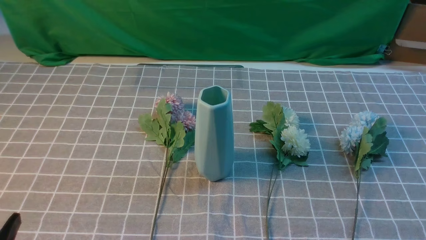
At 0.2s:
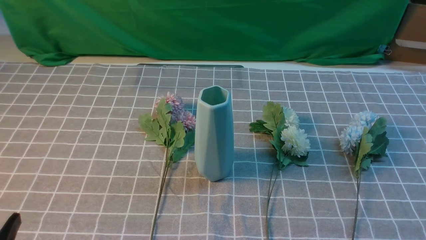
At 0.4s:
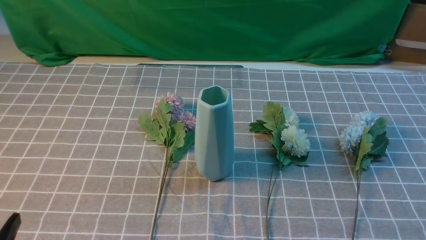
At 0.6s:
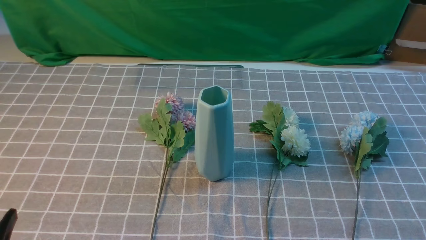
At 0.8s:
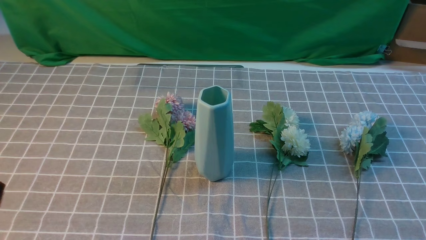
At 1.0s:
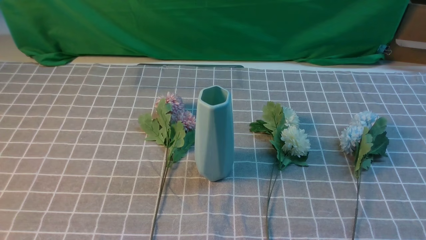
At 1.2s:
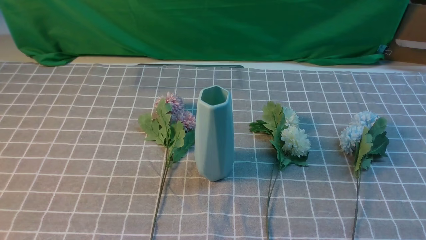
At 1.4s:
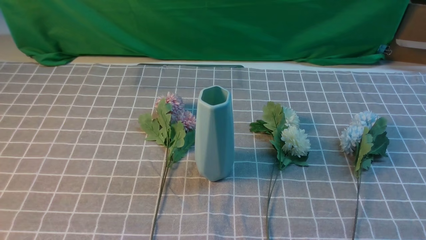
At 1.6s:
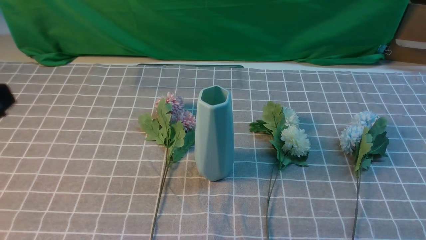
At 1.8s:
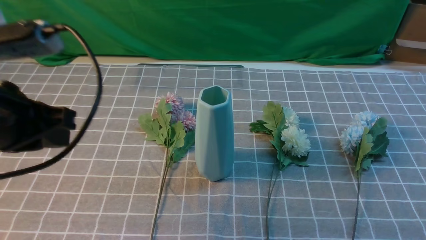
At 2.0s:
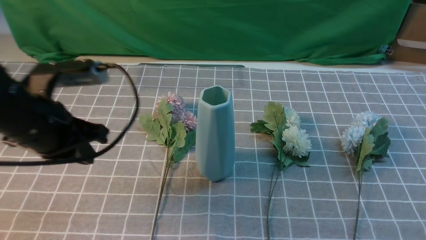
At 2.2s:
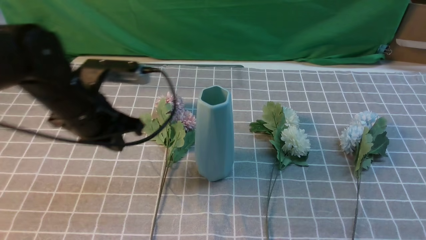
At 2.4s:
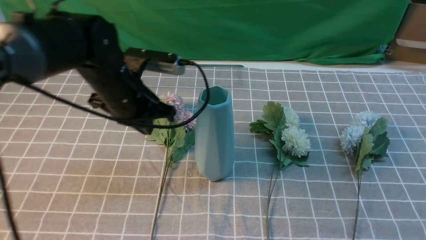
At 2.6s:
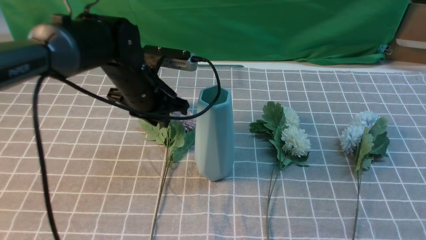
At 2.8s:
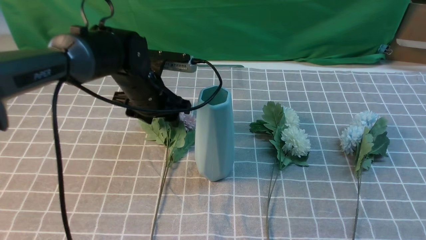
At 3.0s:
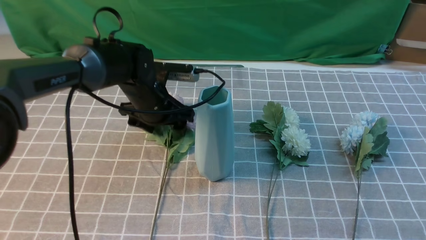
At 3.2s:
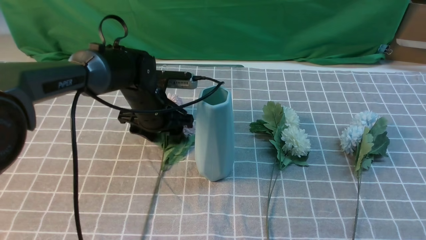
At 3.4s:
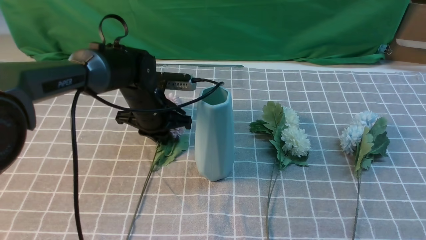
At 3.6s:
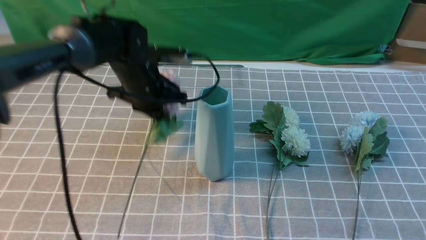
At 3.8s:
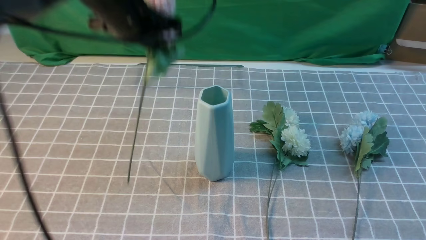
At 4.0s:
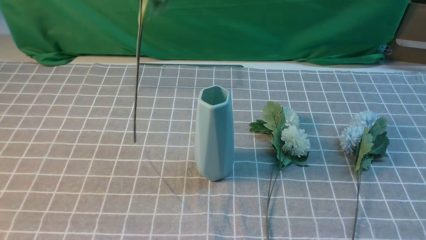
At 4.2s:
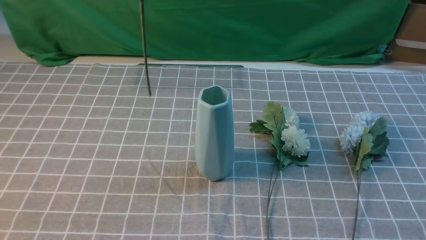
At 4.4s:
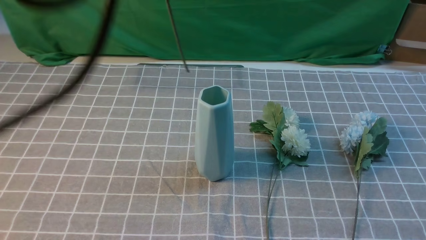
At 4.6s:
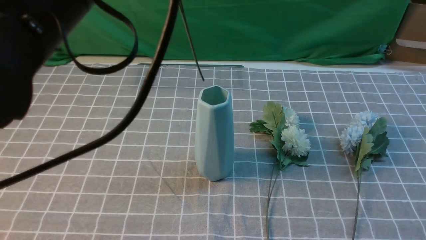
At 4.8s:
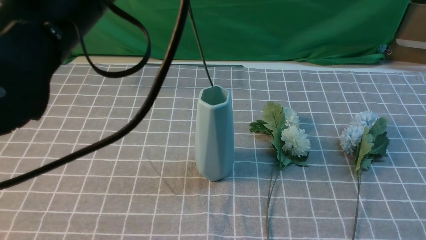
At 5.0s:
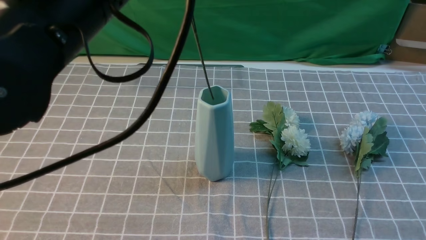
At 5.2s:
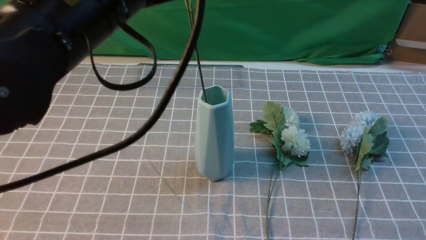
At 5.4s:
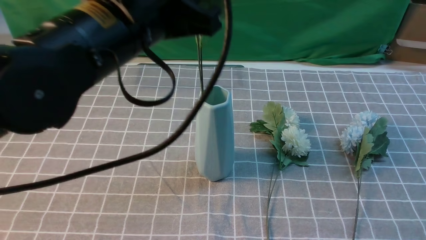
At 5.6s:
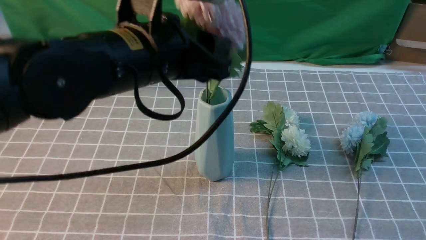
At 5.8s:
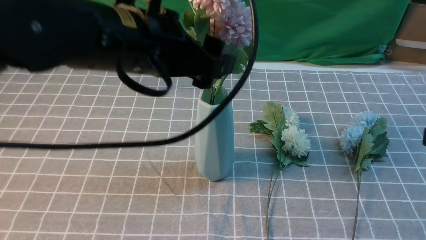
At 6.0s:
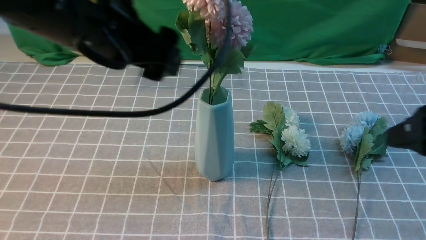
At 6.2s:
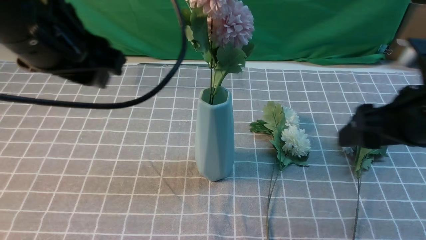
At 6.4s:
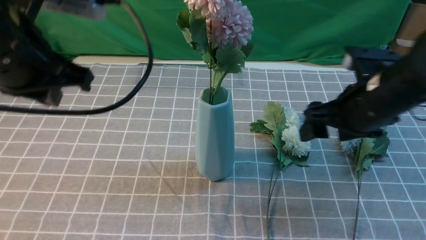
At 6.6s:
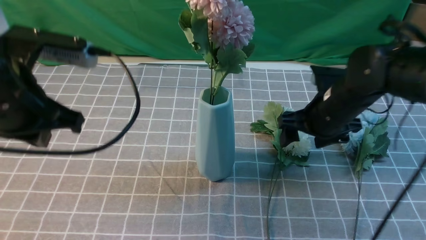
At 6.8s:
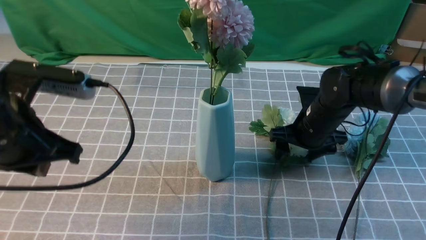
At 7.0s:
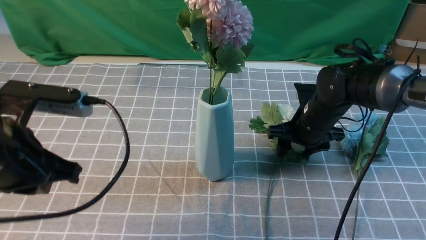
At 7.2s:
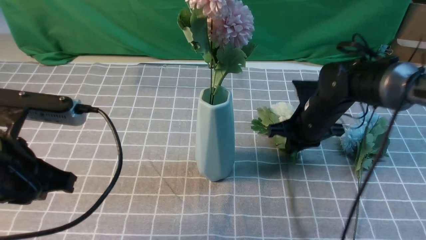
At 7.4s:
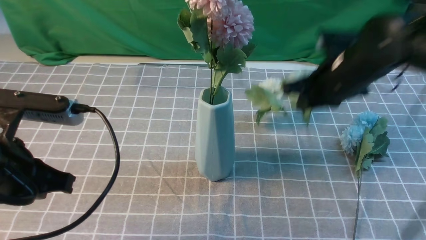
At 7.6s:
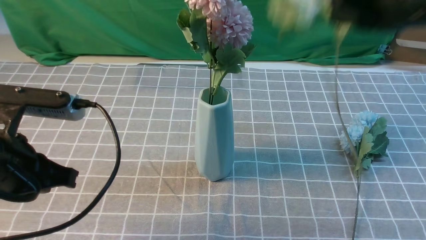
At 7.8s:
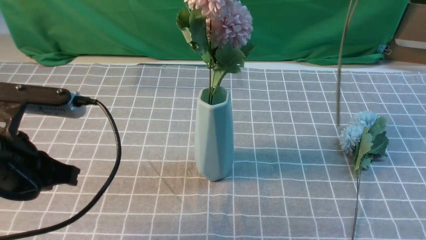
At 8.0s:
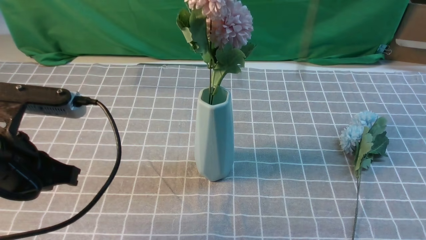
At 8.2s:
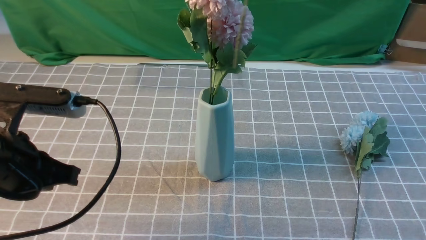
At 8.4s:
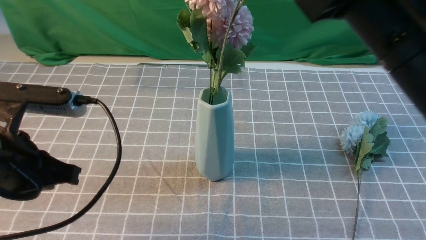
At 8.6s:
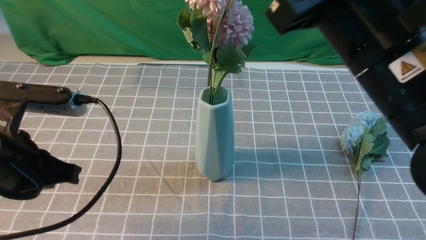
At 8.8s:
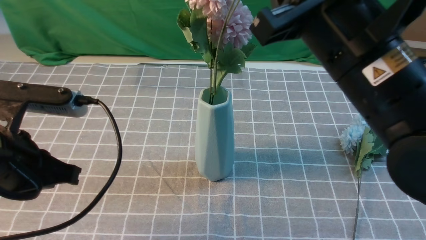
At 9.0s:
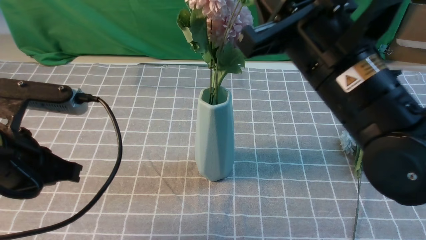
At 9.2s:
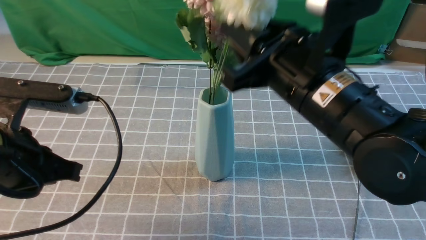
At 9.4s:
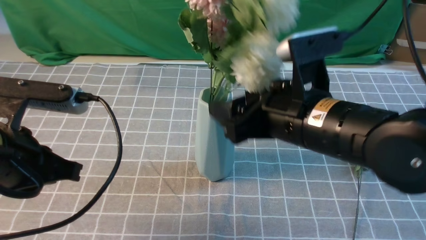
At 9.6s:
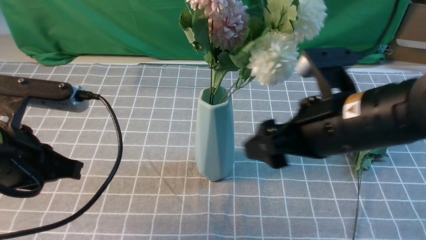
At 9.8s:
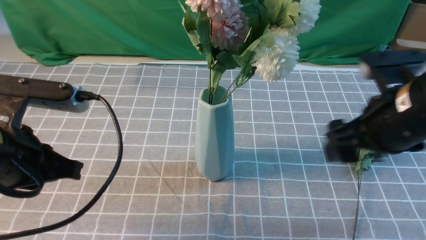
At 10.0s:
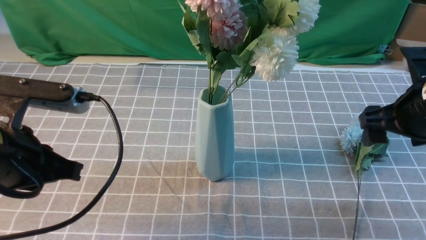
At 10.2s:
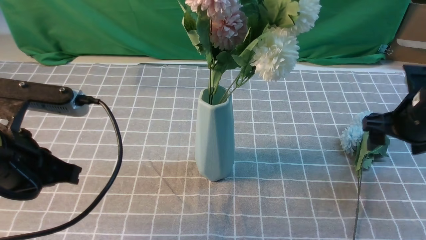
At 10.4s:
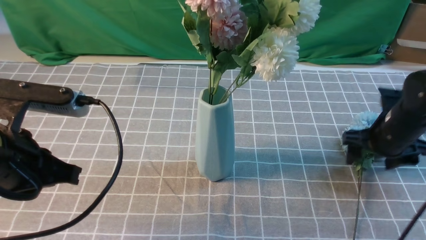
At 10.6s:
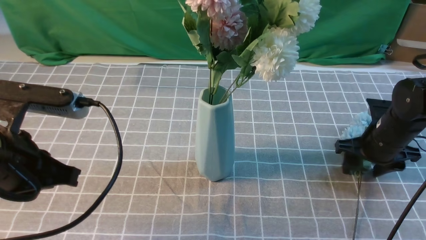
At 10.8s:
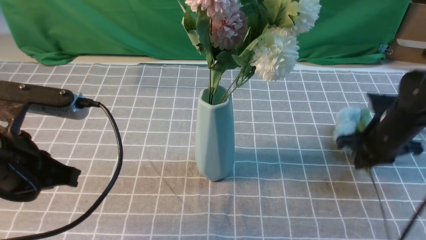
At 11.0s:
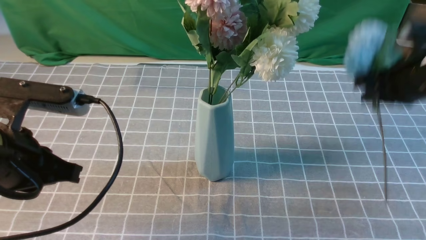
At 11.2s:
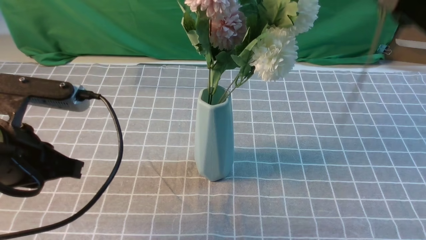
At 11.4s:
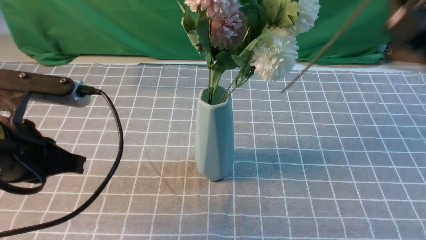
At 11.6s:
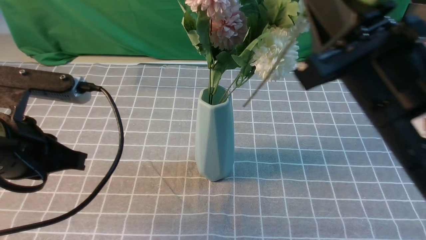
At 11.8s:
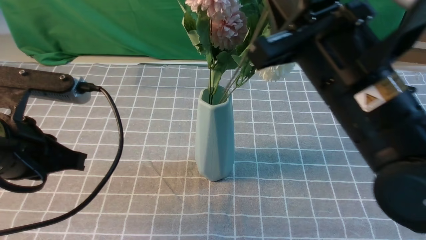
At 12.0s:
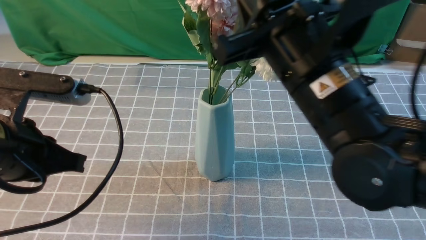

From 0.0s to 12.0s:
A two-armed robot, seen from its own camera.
Task of the whole recording: insert the flowers into the vase on the table with the grey tablecloth.
Step, from 0.0s to 3.4s: use the left arm to grab a bunch of fresh flowers.
Step, from 3.6s to 5.8s: use the left arm to insert the flowers into the vase.
Step, from 6.2s to 7.2s: use the right arm to grab a bunch of fresh flowers.
Step, from 7.4s to 9.4s: use the right arm to insert the flowers into the vase.
Step, from 9.6s to 10.6s: use the right arm to grab a bunch of fresh flowers.
From 1.6s to 3.0s: The left gripper travels forward, downward and to the right by approximately 35 cm, and opens. The right gripper is displaced upward and forward by approximately 15 cm.
From 3.0s to 4.4s: The left gripper moves upward and backward, roughly 35 cm, and closes.
From 4.4s to 6.0s: The left gripper moves downward, about 10 cm, and opens up; the right gripper heads forward, covering approximately 5 cm, and opens.
From 6.0s to 7.6s: The left gripper goes roughly 15 cm to the left, downward and backward, and closes its fingers. The right gripper travels forward and to the left by roughly 15 cm, moves roughly 20 cm downward and comes back, and closes.
From 7.6s to 9.0s: The right gripper heads backward and to the left, covering some 10 cm.
From 9.0s to 10.4s: The right gripper moves downward, to the right and forward, approximately 25 cm, and opens up.
From 10.4s to 12.0s: The right gripper shifts some 25 cm to the left, upward and backward, and closes its fingers.

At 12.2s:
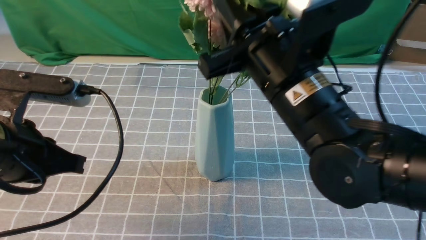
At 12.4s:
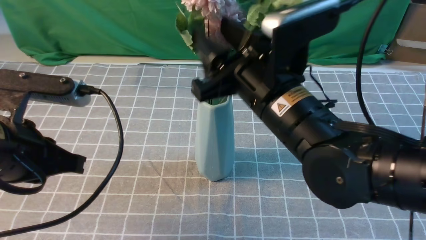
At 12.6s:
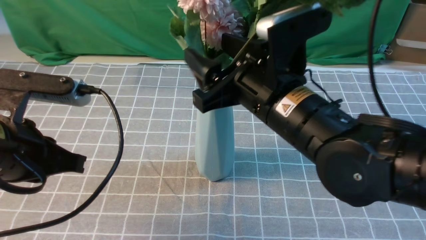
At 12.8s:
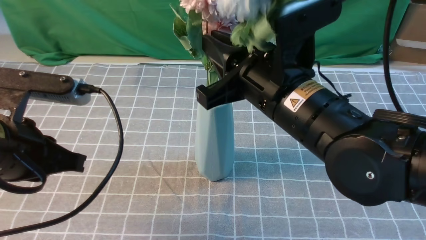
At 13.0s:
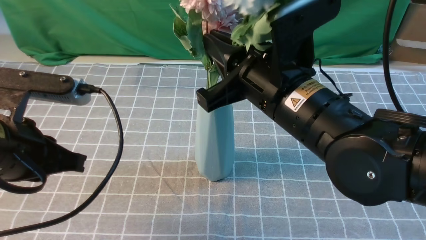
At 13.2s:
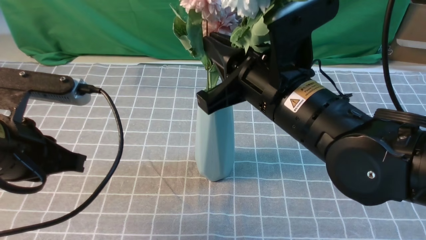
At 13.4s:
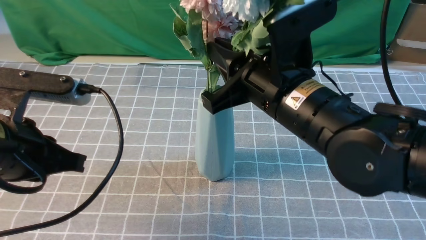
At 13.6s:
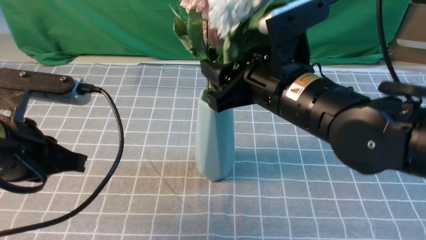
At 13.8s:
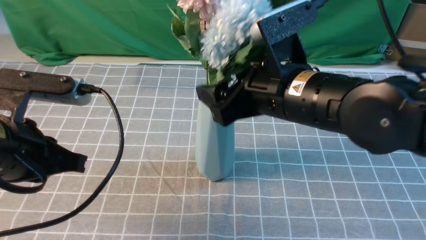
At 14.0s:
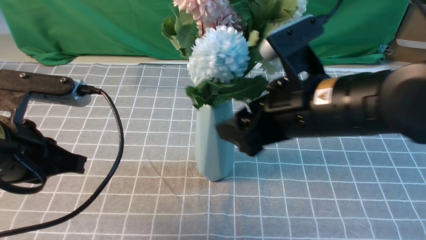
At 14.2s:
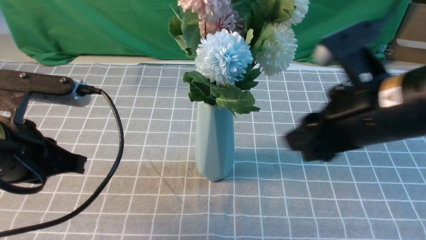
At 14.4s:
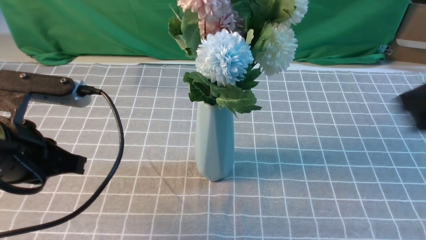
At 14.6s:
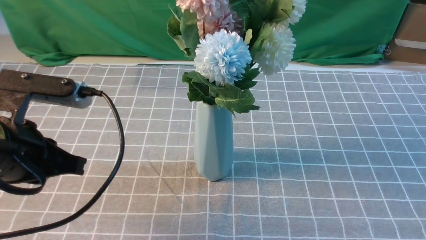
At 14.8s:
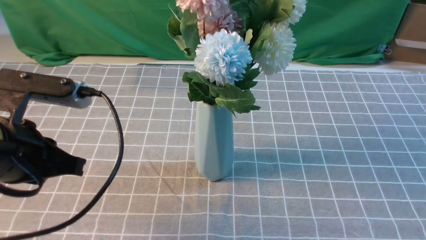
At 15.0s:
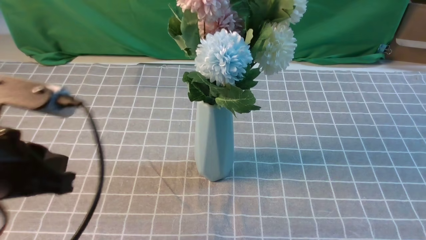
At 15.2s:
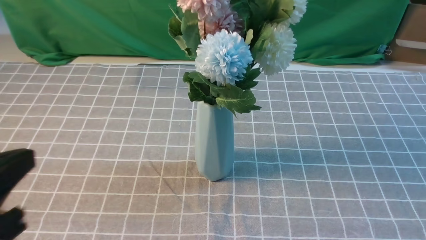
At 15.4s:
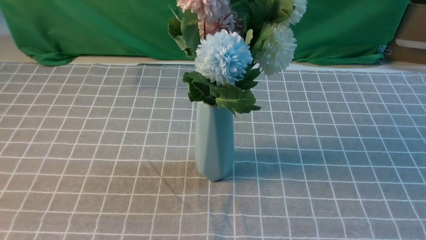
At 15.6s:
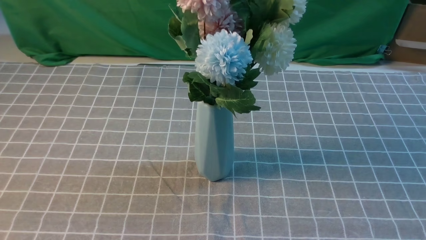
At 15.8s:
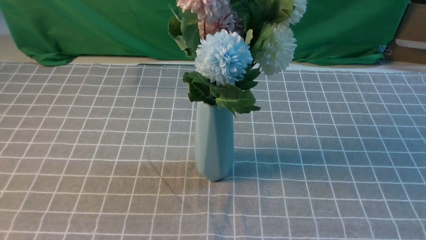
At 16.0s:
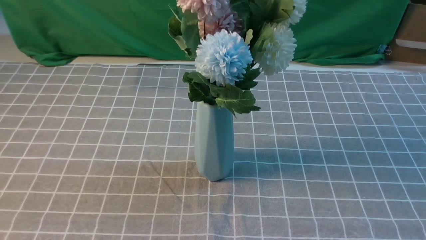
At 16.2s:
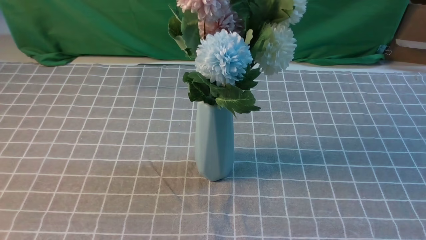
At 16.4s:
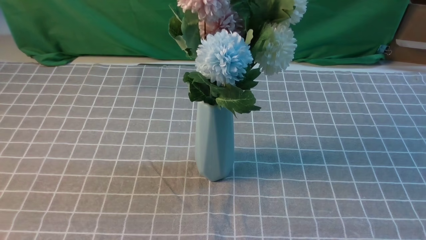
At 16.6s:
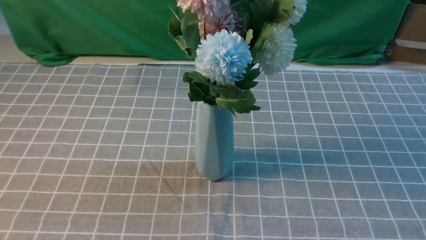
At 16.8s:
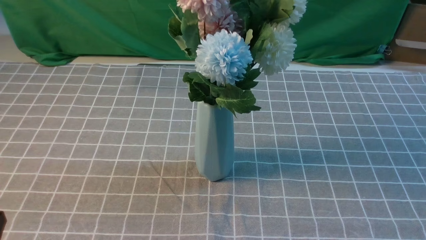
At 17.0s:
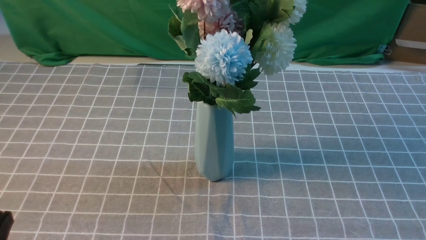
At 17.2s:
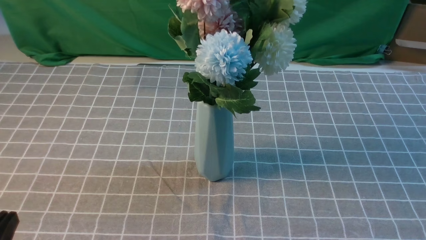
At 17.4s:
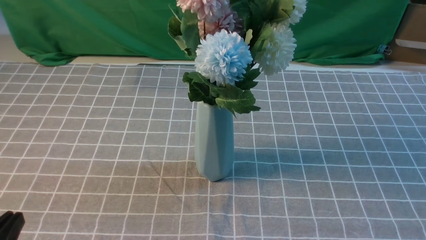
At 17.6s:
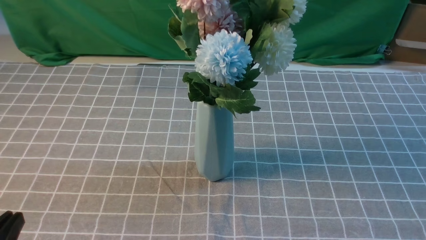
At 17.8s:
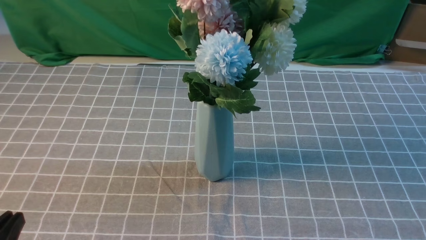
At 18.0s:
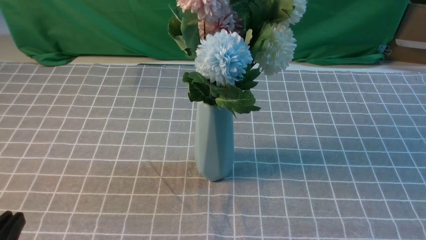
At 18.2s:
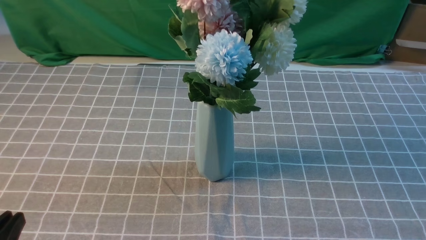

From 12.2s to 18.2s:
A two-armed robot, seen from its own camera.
Task of the whole recording: insert the flowers into the vase on the table with the grey tablecloth.
Step, from 12.2s to 14.0s: use the right arm to insert the flowers into the vase.
From 12.2s to 13.8s: The right gripper opens up.
From 13.8s to 15.2s: The right gripper heads backward and to the right, covering roughly 35 cm, and closes up; the left gripper shifts roughly 10 cm backward.
From 15.2s to 16.6s: The left gripper travels downward and backward by roughly 10 cm.
From 16.6s to 18.2s: The left gripper travels downward by some 5 cm.
